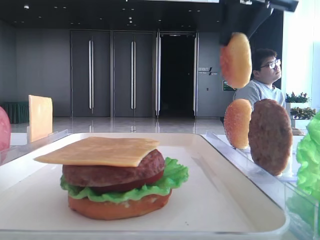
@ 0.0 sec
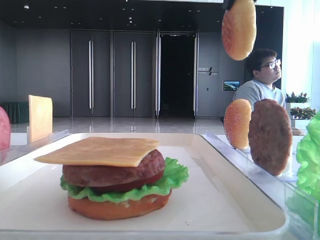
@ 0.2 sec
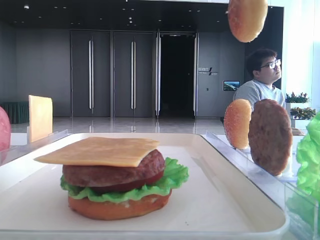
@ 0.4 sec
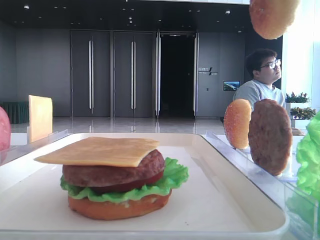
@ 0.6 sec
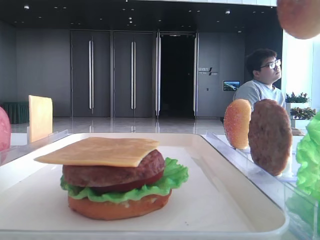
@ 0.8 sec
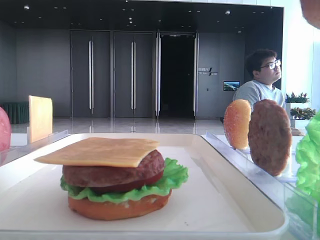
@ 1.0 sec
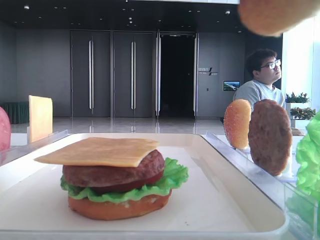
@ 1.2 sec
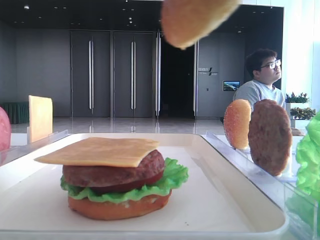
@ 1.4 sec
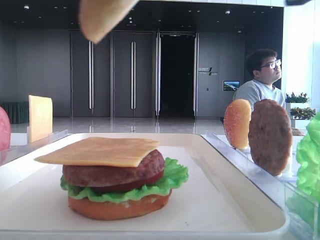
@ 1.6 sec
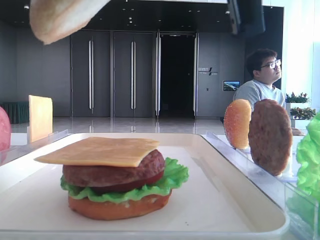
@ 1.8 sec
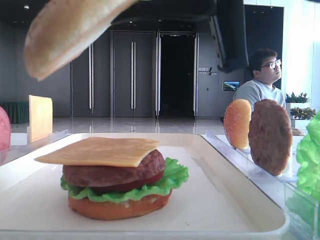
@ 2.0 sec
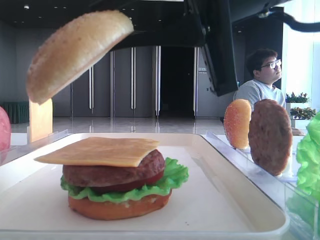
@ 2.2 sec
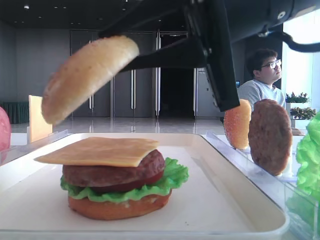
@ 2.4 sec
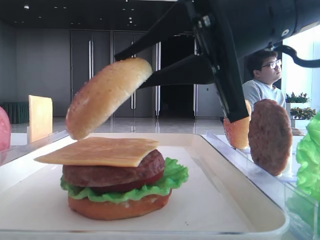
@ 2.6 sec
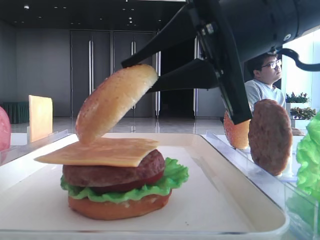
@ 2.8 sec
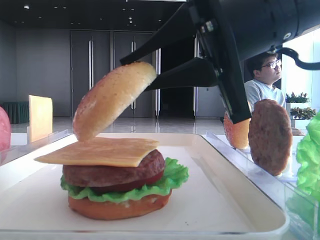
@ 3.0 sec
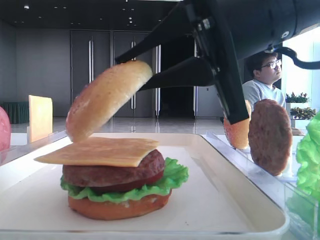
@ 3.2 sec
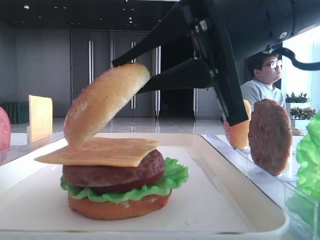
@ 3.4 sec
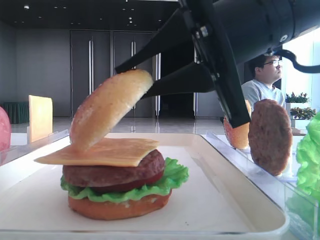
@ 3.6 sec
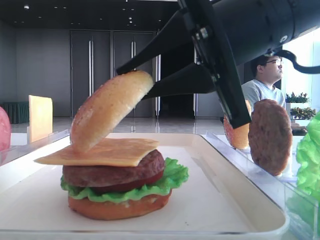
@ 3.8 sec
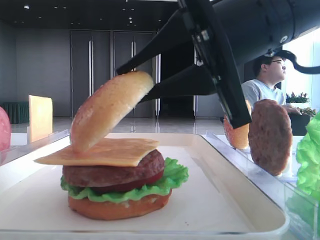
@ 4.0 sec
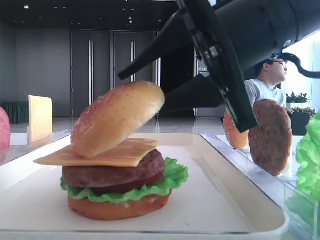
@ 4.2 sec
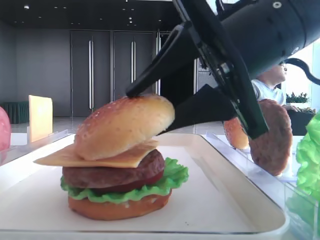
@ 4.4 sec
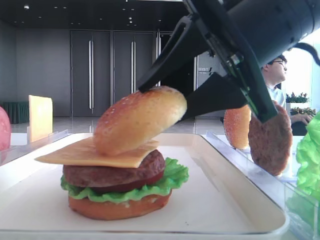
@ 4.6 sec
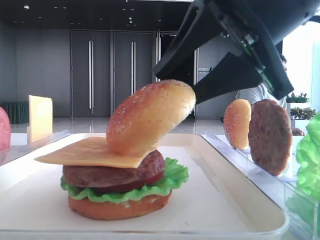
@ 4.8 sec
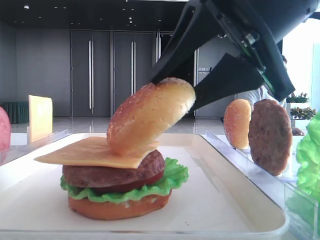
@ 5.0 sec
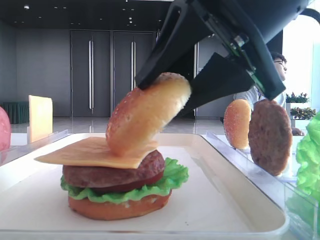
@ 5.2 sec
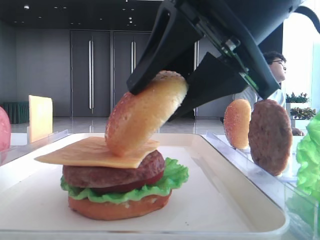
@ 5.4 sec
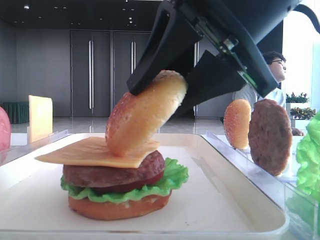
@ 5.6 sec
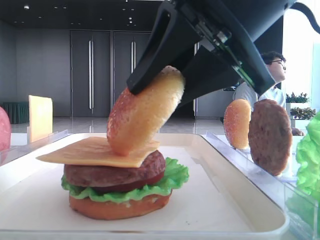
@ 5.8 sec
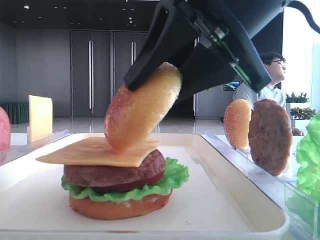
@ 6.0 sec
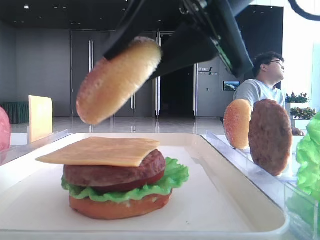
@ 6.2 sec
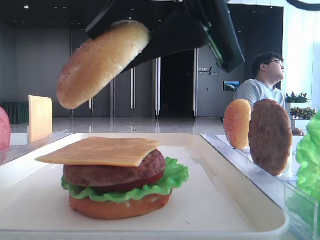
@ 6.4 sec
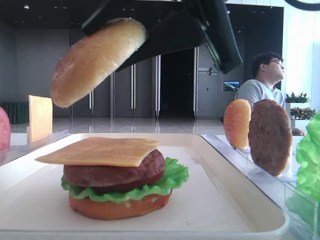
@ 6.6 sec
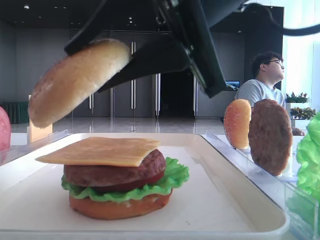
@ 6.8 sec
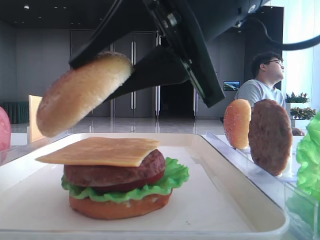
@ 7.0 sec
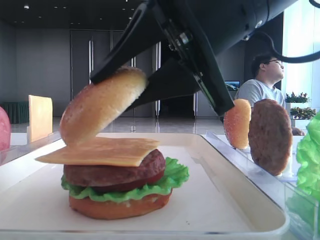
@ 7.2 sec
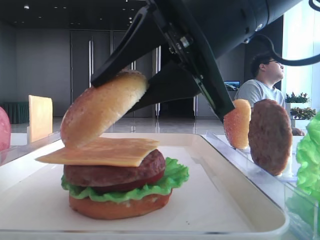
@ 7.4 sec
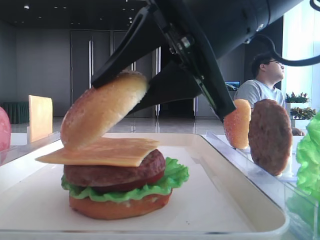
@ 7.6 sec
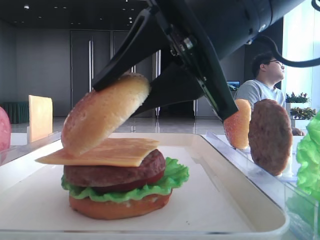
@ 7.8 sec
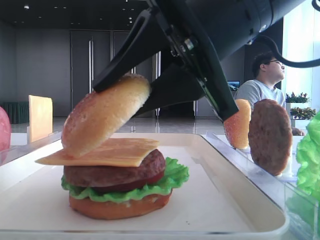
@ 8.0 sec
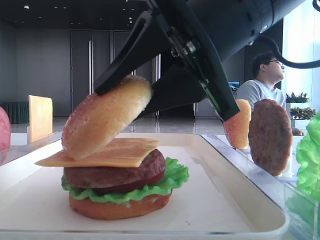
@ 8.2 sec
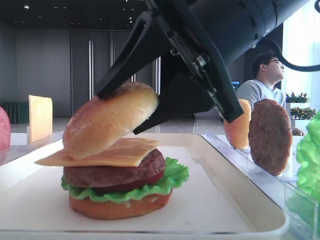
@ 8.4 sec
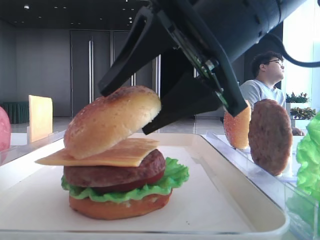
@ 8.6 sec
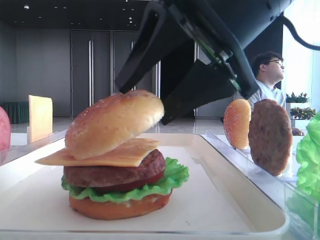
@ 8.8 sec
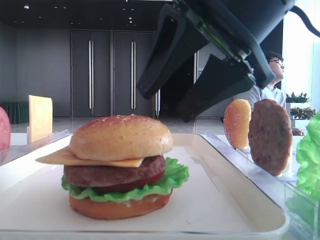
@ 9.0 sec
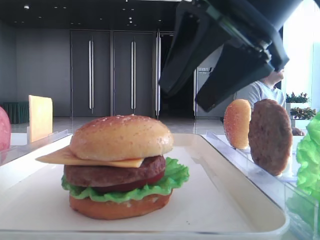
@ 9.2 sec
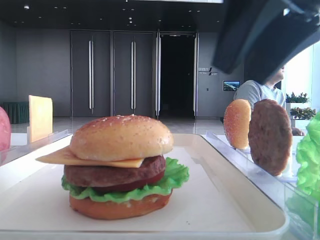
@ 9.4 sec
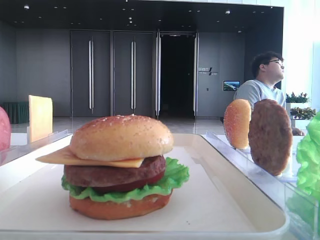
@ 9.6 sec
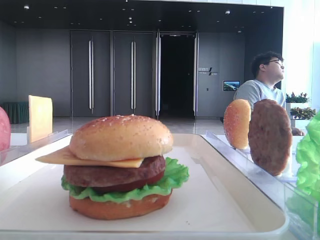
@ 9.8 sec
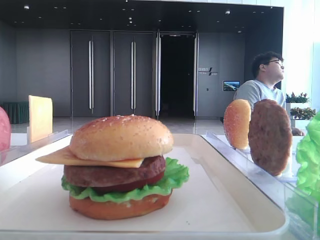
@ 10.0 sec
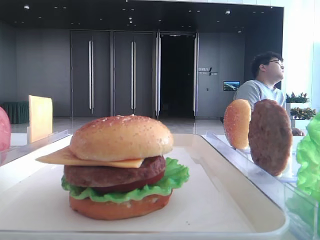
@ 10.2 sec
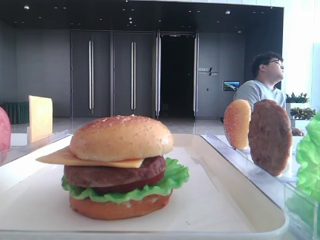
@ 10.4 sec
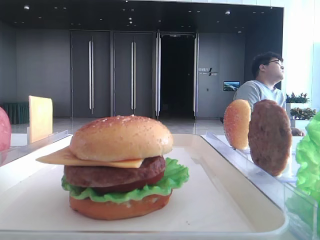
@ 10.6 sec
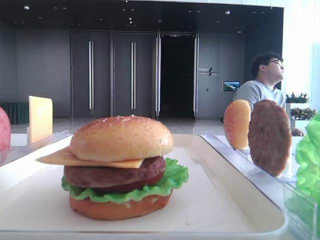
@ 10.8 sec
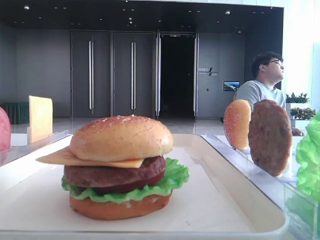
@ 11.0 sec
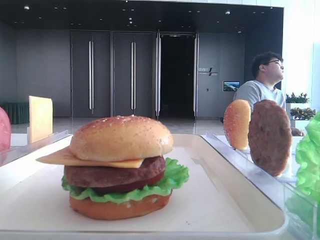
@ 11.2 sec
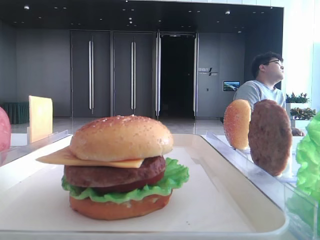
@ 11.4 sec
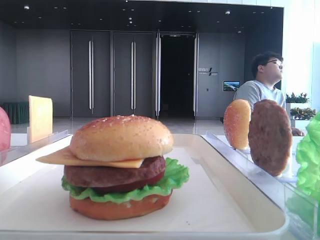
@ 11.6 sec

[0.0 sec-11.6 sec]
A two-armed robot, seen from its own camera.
Step, 0.0 sec to 9.0 sec: Place the top bread slice on the cheese with the right hand.
0.0 sec to 1.4 sec: The right gripper goes roughly 25 cm backward.
1.4 sec to 2.8 sec: The right gripper heads downward and forward, covering about 15 cm.
2.8 sec to 4.4 sec: The right gripper opens its fingers.
7.2 sec to 8.8 sec: The right gripper opens.
8.8 sec to 10.2 sec: The right gripper moves to the right, upward and backward, approximately 30 cm.
